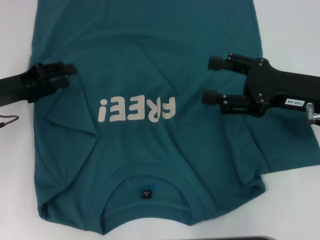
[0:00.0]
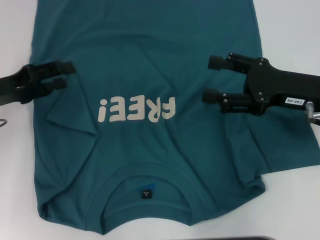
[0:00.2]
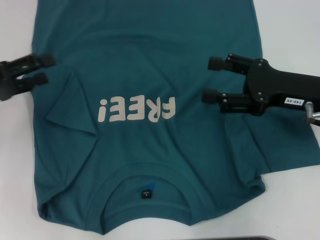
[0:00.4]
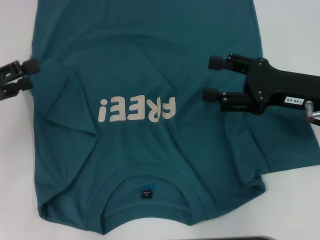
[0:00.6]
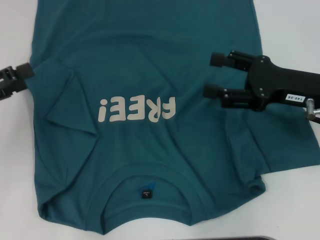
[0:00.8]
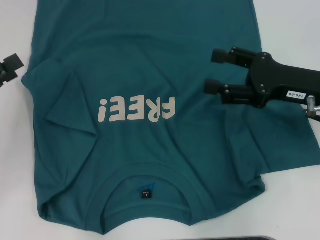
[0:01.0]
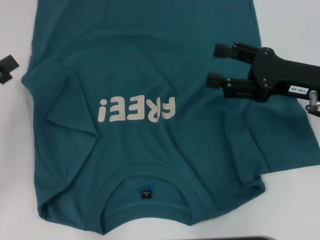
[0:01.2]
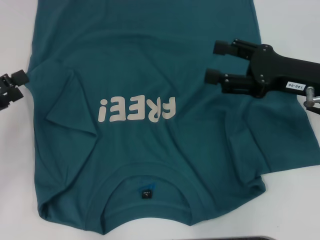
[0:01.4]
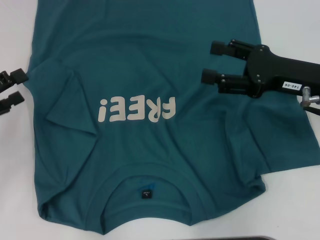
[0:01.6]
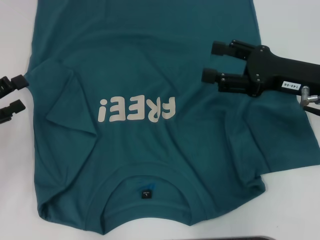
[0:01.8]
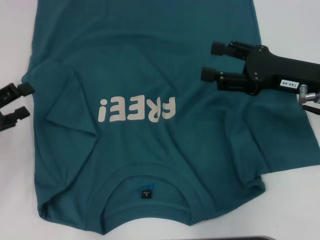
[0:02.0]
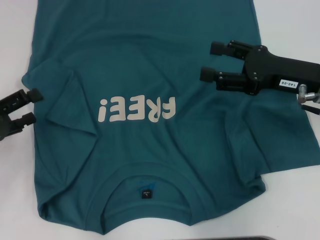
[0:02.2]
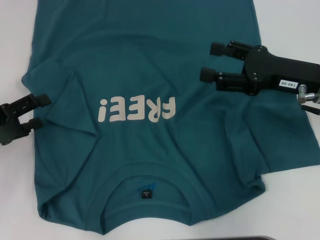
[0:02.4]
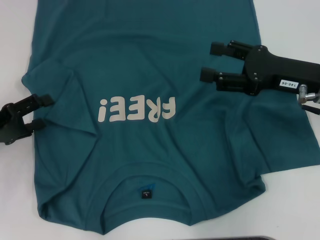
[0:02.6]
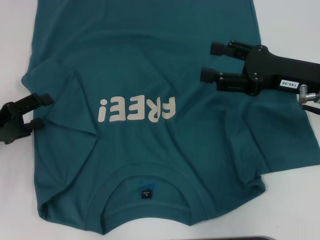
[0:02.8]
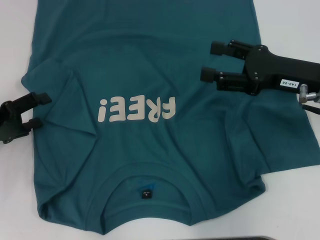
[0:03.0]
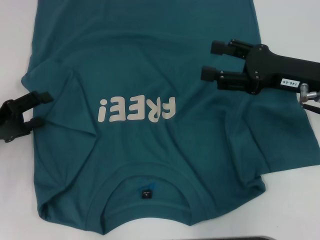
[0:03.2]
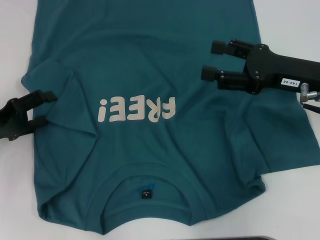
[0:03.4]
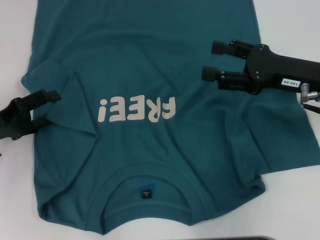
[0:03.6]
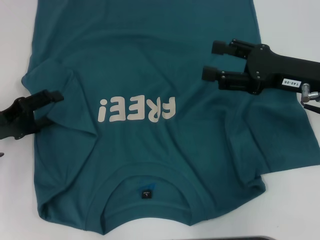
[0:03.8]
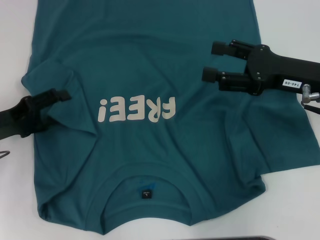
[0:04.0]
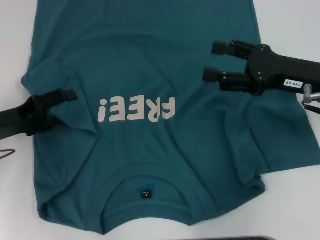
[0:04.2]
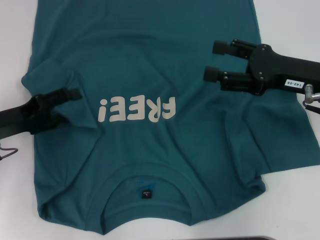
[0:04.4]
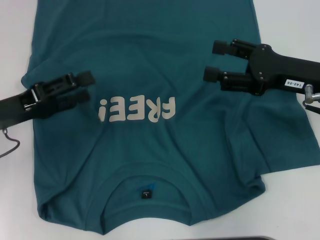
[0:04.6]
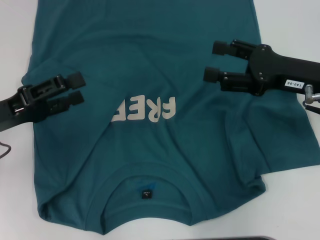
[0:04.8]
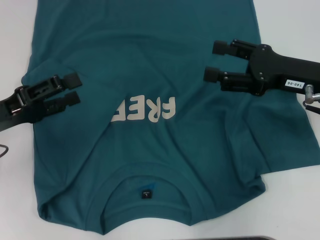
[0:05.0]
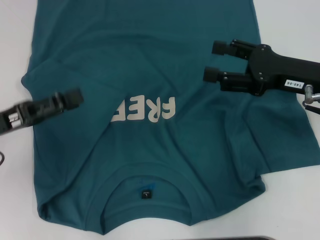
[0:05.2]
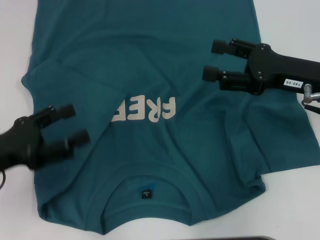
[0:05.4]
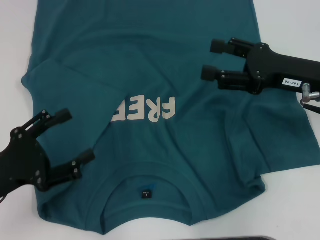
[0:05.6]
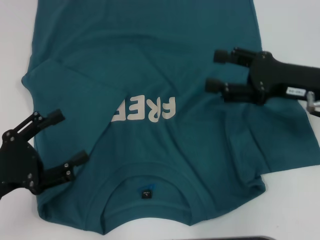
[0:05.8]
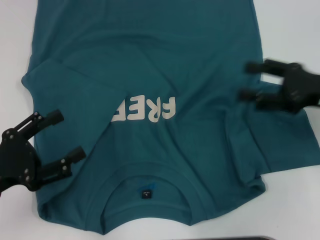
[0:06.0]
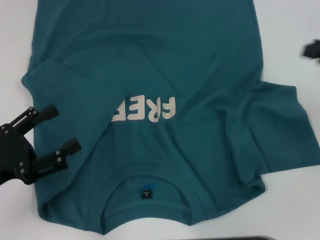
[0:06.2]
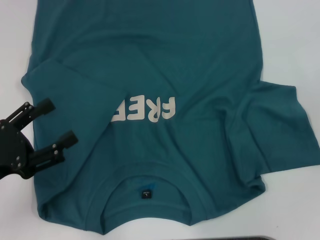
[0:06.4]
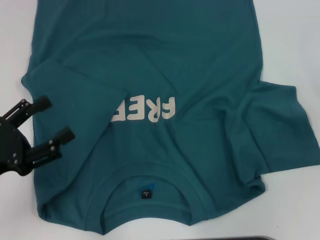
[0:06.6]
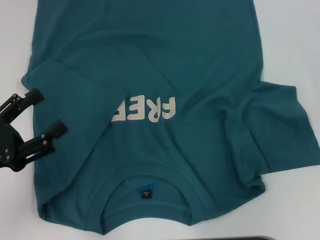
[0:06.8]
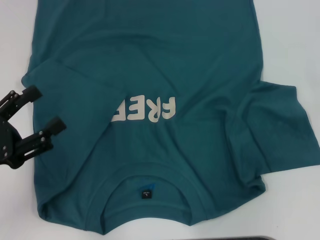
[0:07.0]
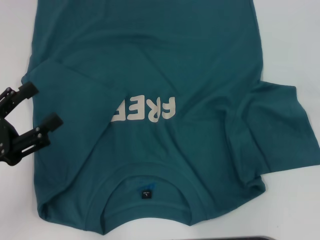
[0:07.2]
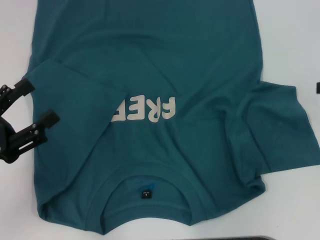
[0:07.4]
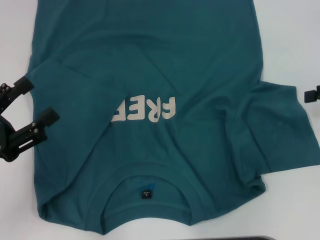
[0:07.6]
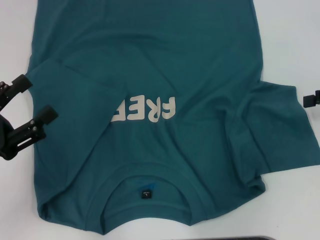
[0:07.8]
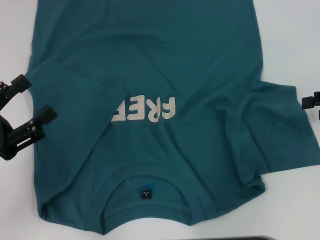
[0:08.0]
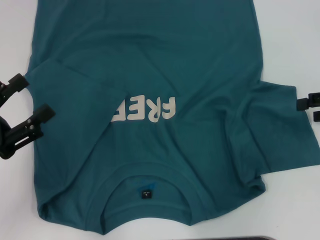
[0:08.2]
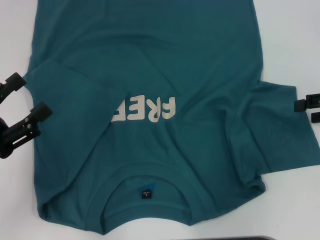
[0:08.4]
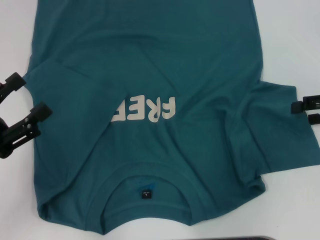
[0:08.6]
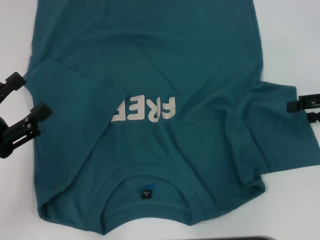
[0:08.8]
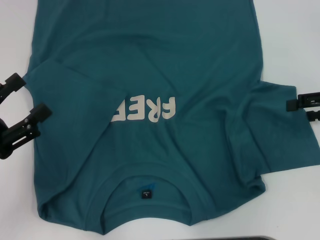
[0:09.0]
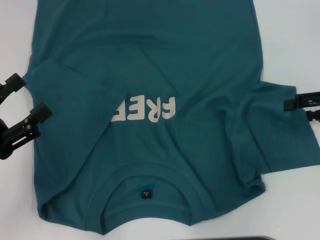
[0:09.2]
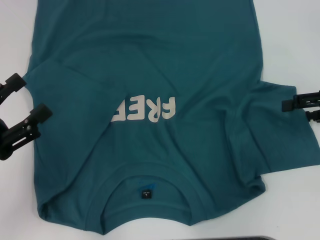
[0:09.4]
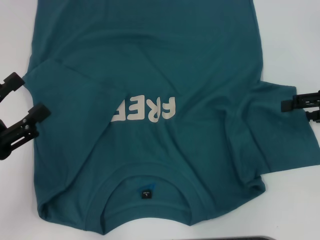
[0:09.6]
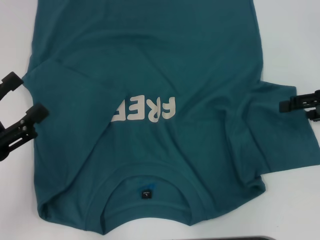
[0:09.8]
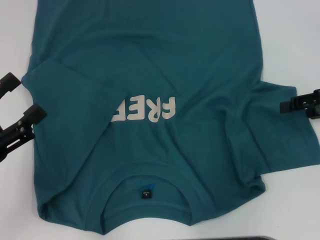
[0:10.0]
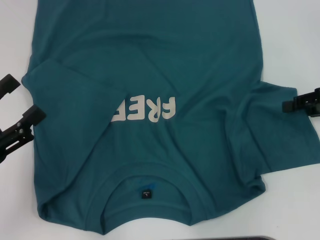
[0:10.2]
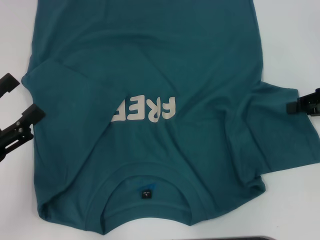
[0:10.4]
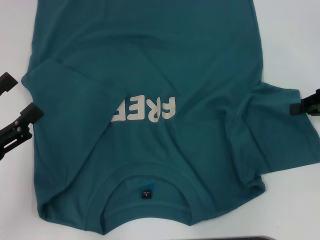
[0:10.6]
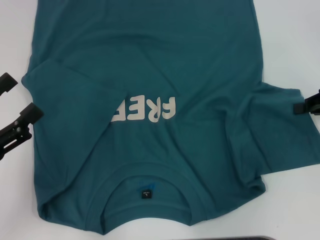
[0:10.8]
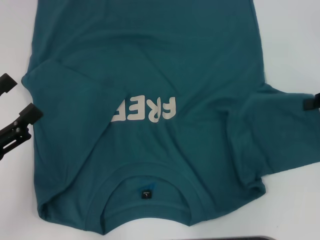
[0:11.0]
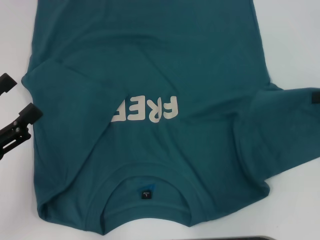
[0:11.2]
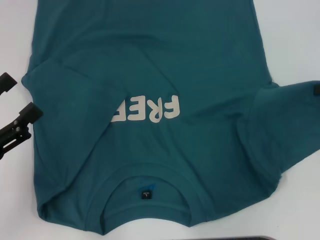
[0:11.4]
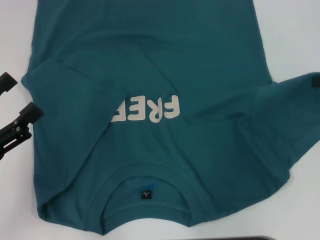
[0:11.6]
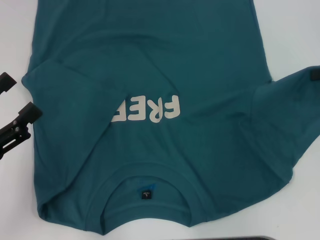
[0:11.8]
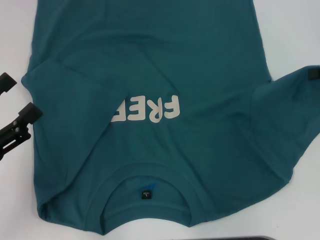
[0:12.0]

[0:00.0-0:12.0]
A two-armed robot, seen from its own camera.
Step, 0:00.0 to 0:04.6: Fold the bottom left sleeve with your left hand.
0:00.0 to 0:01.6: The left gripper travels backward and to the left by about 10 cm, and opens up.
0:01.6 to 0:03.0: There are only small adjustments of the grippers.
0:03.0 to 0:04.4: The grippers make only small movements.
0:04.4 to 0:06.0: The left gripper goes approximately 10 cm backward.
0:06.0 to 0:07.6: The right gripper travels to the right by some 10 cm.
0:07.6 to 0:09.0: The grippers move only a little.
0:09.0 to 0:10.4: The right gripper closes its fingers.
0:10.4 to 0:12.0: The right gripper changes place by approximately 5 cm, and closes its fingers.

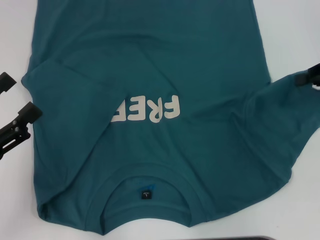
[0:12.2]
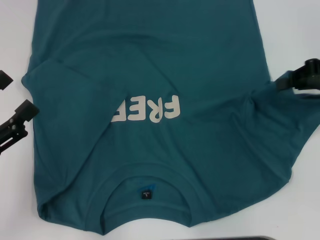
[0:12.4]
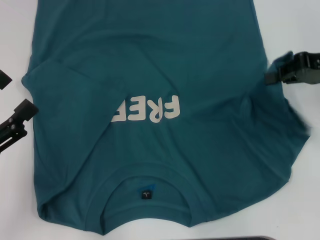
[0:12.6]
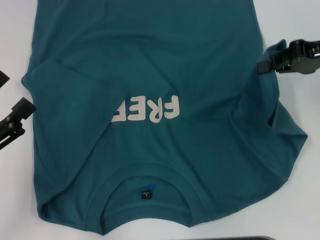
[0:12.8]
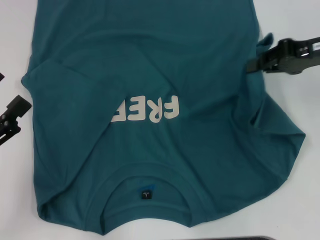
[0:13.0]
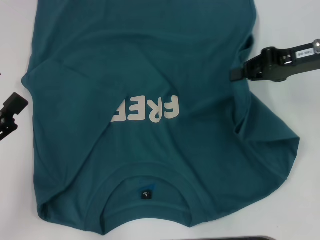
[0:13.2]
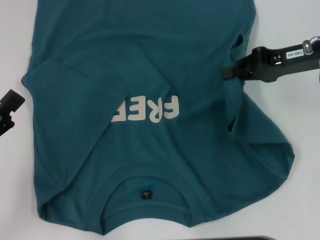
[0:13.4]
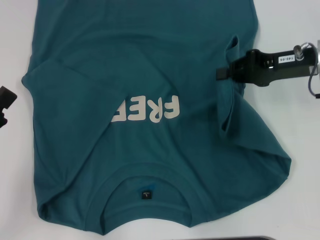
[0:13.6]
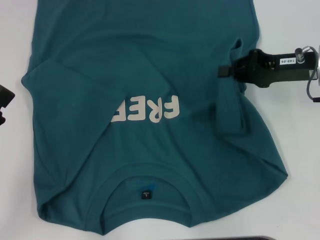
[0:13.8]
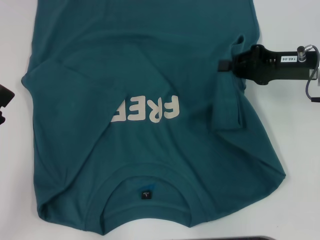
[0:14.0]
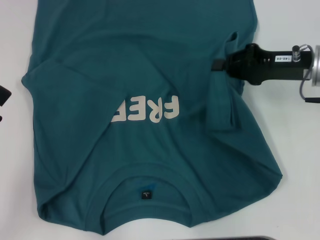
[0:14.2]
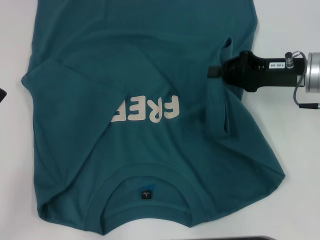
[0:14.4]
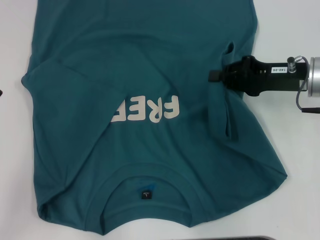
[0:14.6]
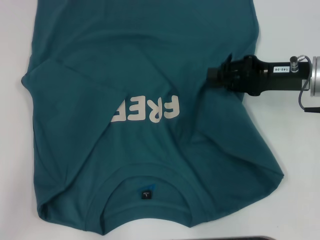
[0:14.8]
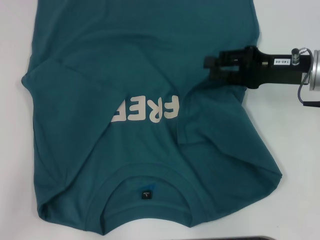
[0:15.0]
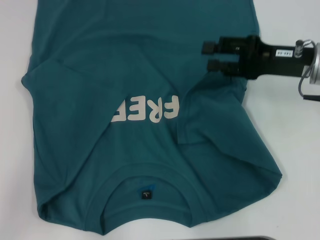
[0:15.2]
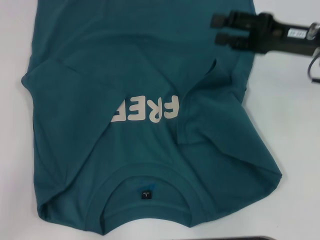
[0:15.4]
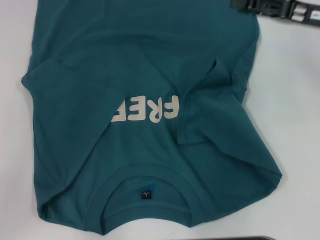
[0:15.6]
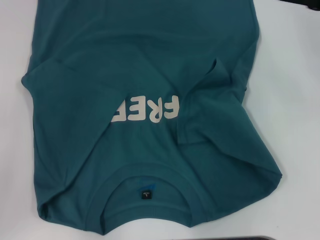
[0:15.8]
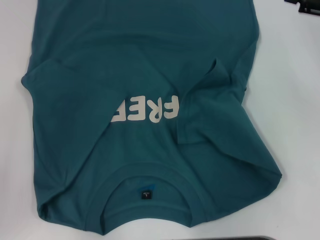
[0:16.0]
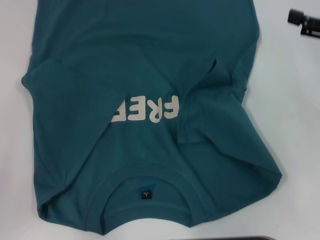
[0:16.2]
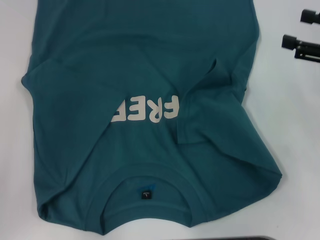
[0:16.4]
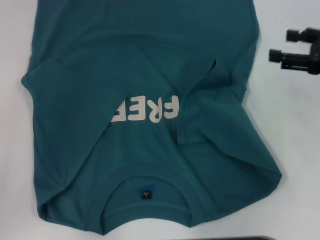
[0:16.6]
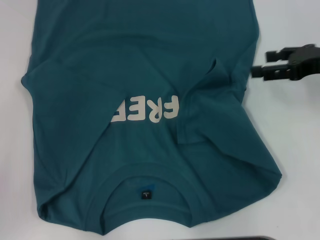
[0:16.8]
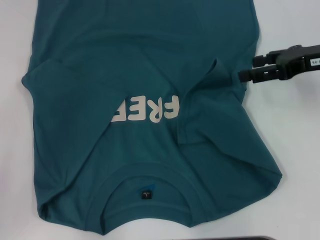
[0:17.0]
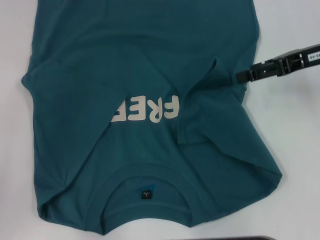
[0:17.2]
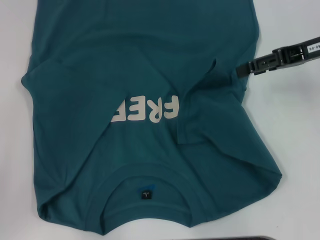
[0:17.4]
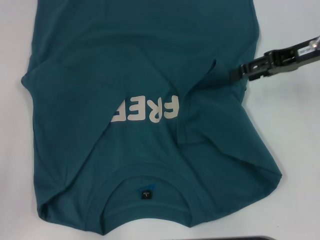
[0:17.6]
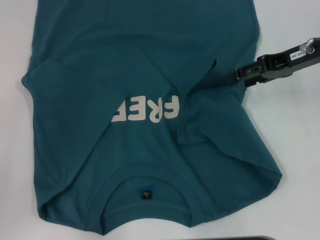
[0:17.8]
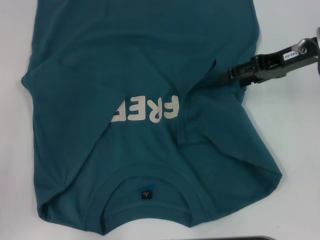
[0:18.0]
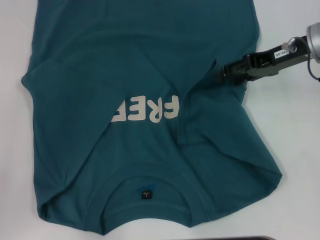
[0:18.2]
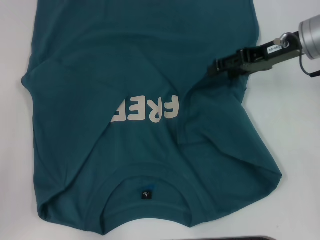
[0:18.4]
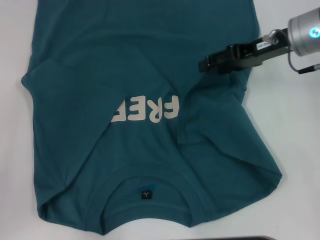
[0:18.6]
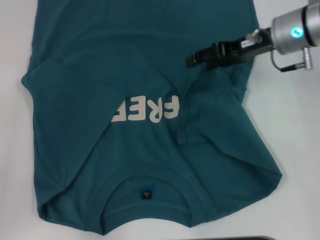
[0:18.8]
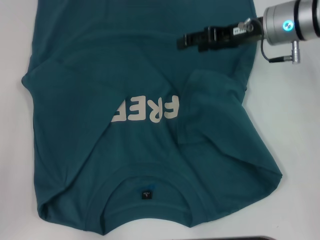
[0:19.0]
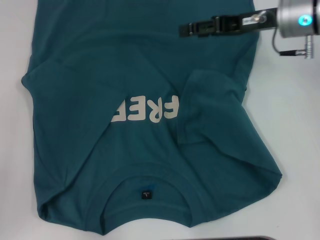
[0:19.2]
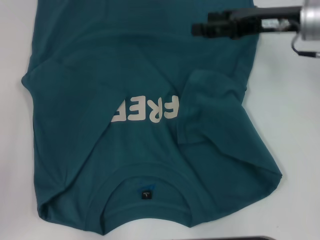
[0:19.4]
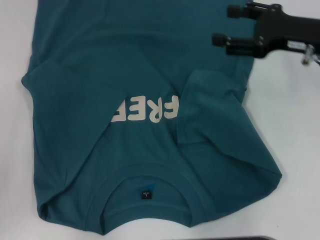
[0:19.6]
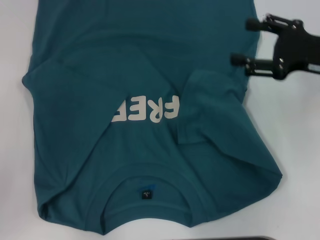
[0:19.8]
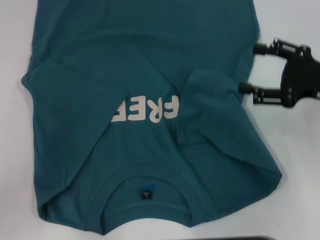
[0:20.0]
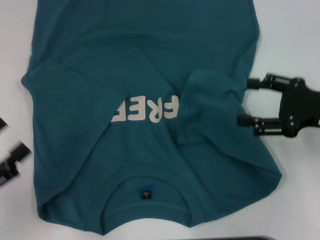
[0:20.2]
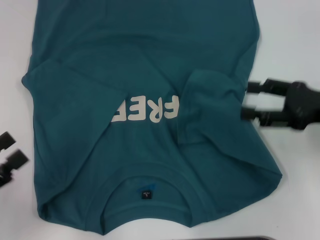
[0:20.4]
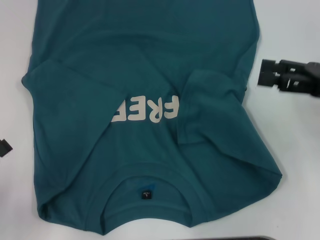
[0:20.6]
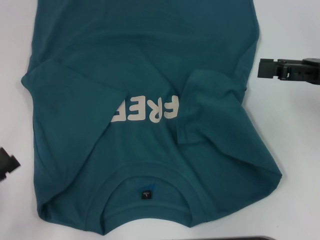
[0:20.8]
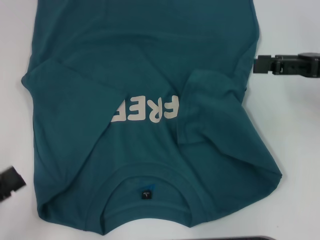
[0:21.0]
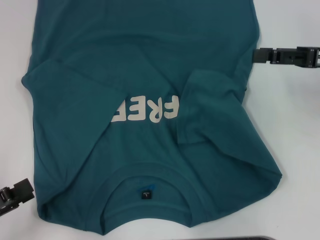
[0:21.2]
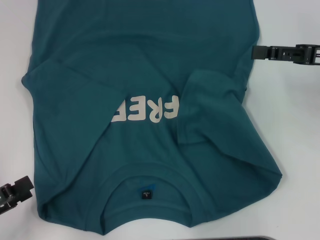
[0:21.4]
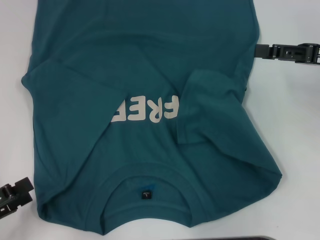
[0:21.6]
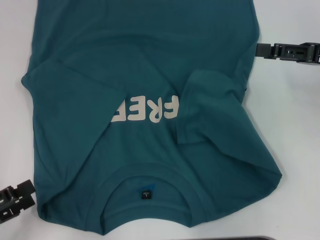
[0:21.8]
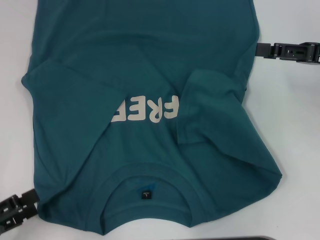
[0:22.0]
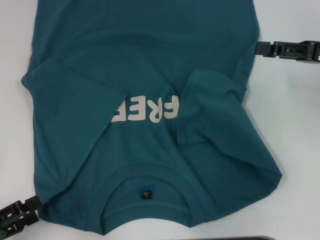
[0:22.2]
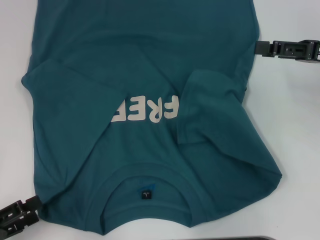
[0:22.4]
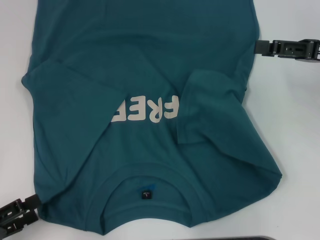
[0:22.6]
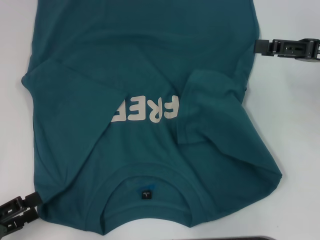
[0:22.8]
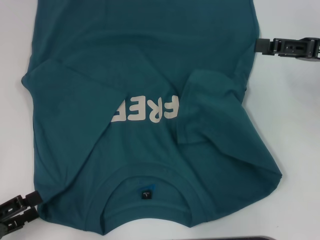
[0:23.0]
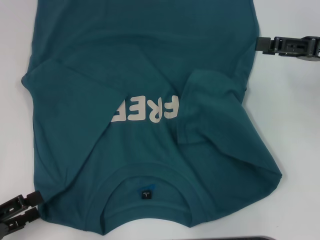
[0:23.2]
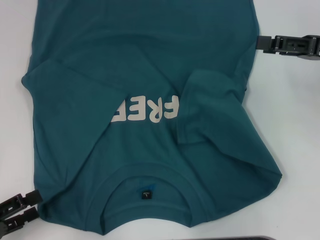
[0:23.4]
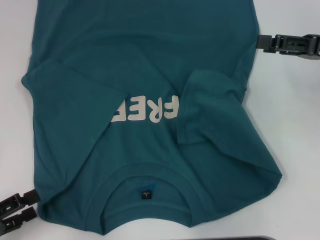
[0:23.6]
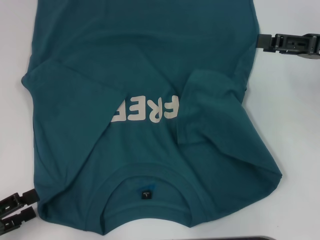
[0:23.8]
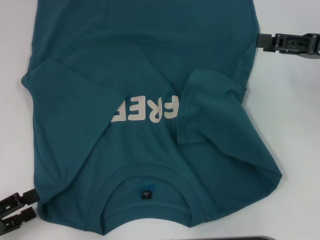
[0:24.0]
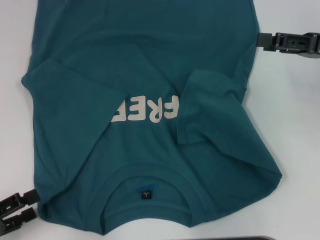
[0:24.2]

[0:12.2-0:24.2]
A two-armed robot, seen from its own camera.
Step, 0:12.2 to 0:18.8: Fold the bottom right sleeve to the right.
0:12.2 to 0:13.8: The right gripper moves to the left, about 10 cm.
0:13.8 to 0:15.2: The right gripper opens its fingers.
0:15.2 to 0:16.6: The right gripper goes roughly 10 cm to the right.
0:16.6 to 0:18.2: The right gripper travels to the left and forward by roughly 10 cm.
0:18.2 to 0:19.8: The right gripper shifts approximately 5 cm backward.
0:19.8 to 0:21.2: The left gripper moves approximately 5 cm.
0:21.2 to 0:22.6: The grippers stay close to where they were, moving slightly.
0:22.6 to 0:24.2: Neither gripper changes place.
